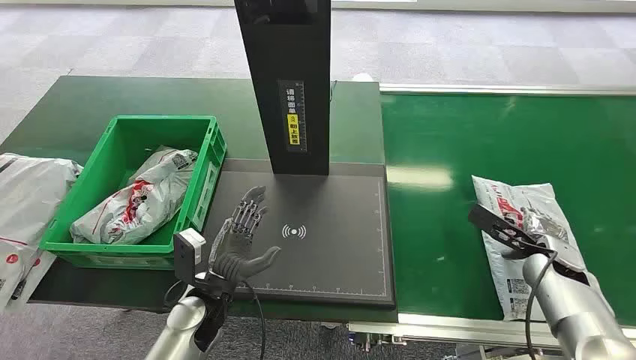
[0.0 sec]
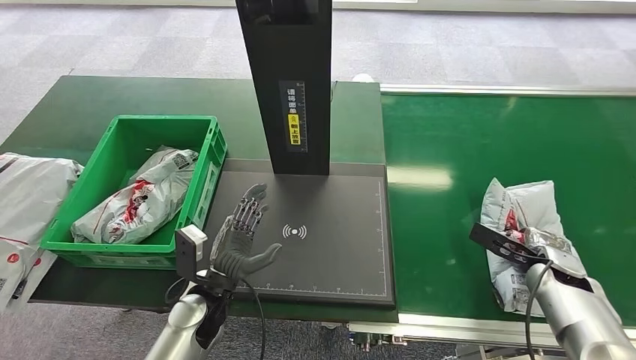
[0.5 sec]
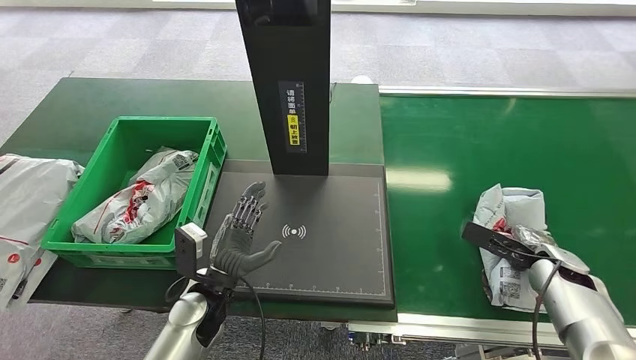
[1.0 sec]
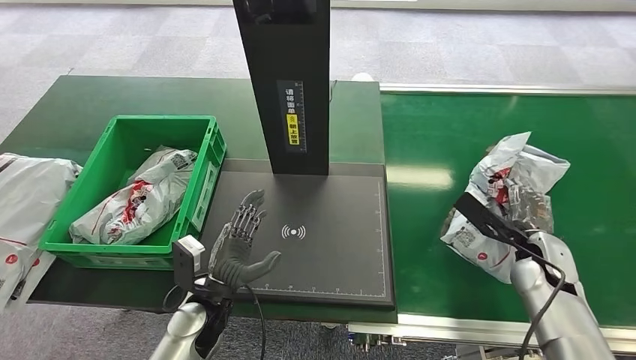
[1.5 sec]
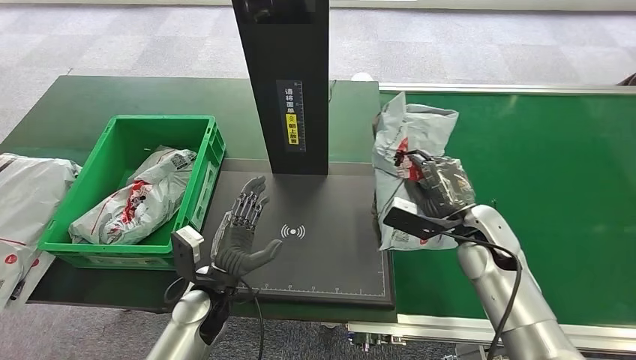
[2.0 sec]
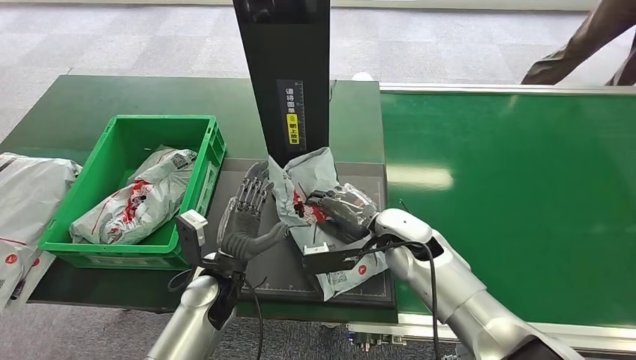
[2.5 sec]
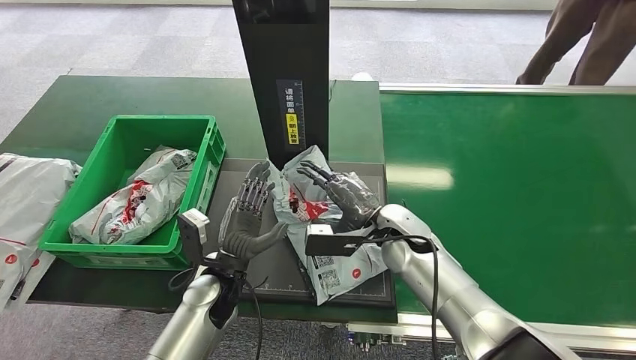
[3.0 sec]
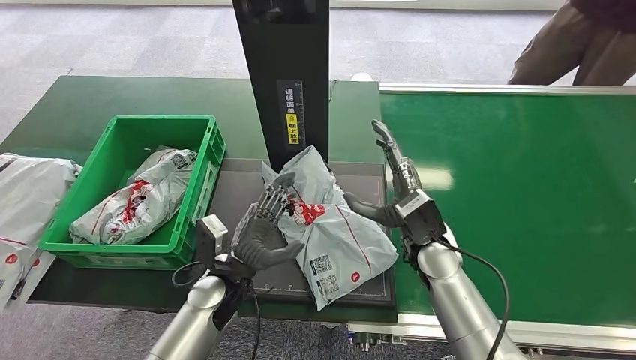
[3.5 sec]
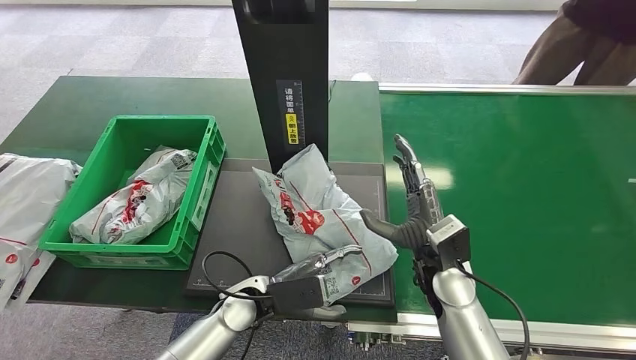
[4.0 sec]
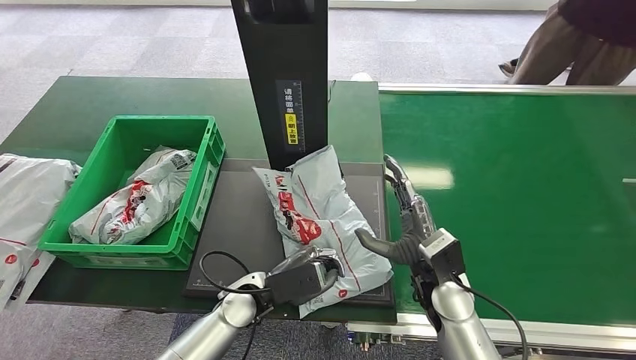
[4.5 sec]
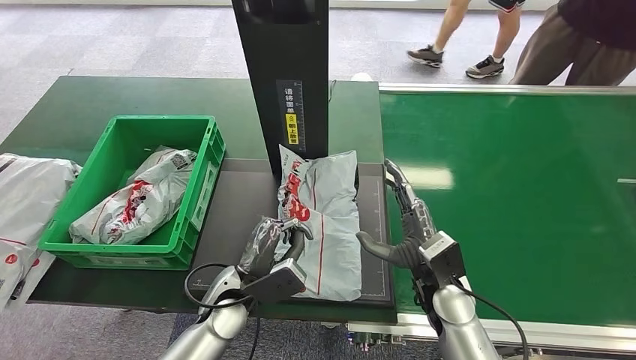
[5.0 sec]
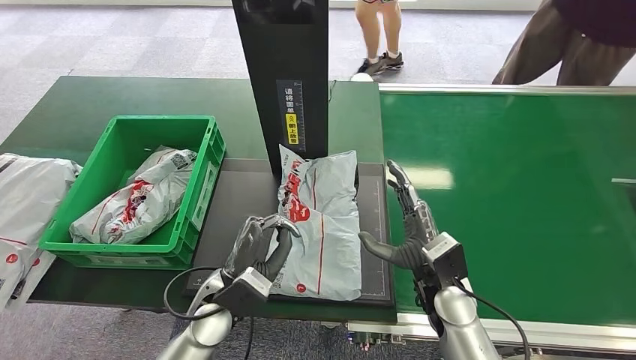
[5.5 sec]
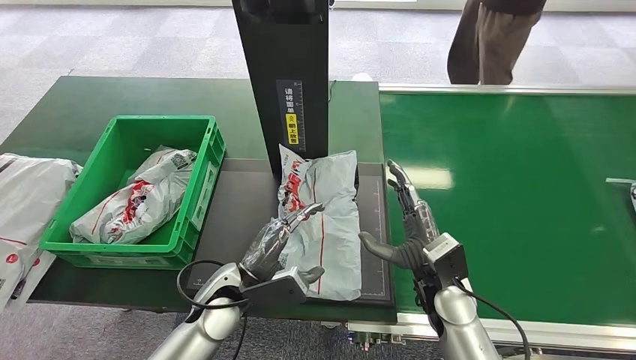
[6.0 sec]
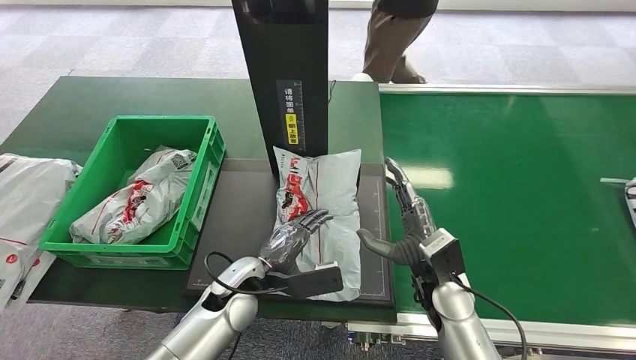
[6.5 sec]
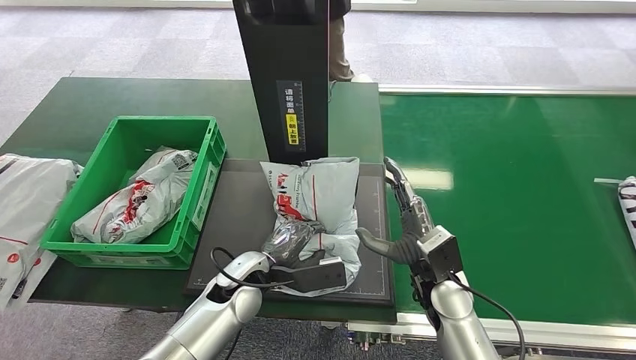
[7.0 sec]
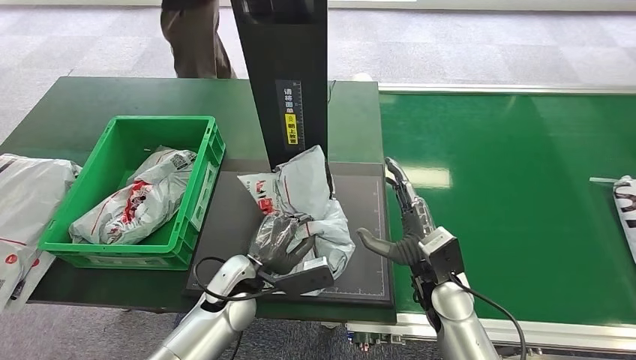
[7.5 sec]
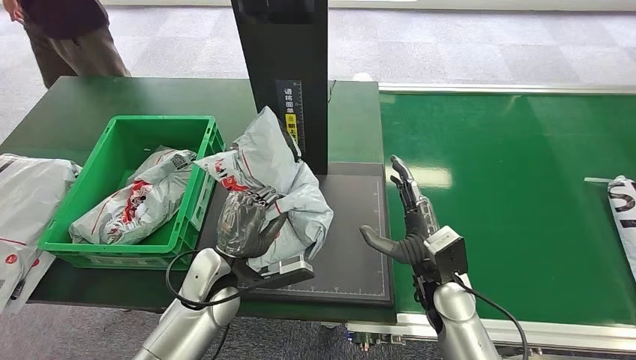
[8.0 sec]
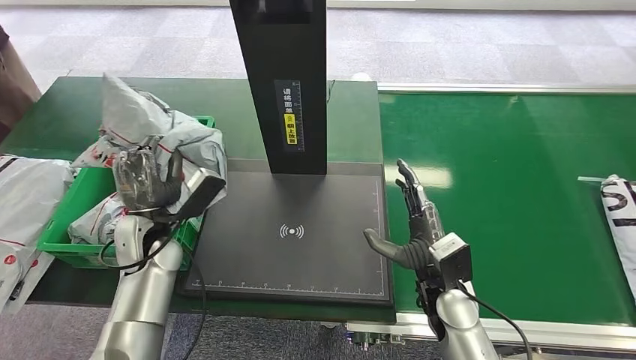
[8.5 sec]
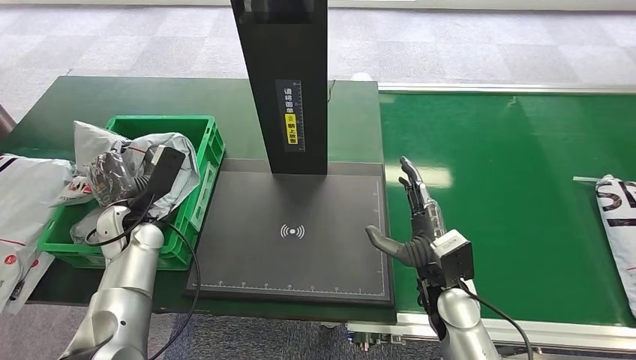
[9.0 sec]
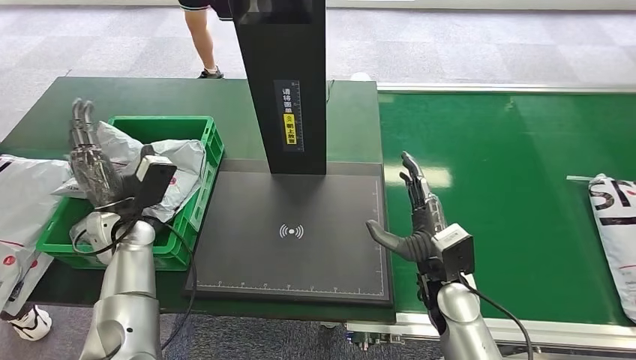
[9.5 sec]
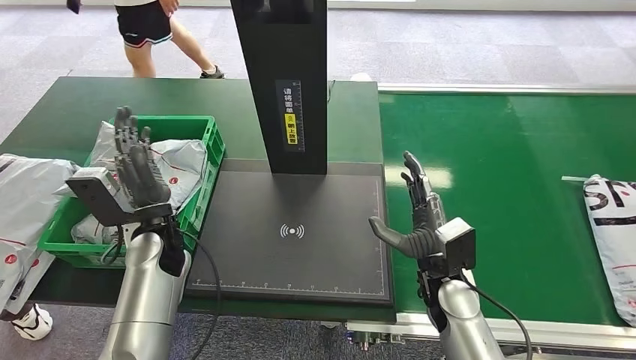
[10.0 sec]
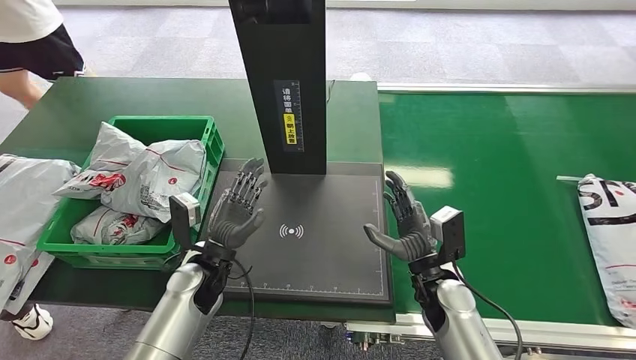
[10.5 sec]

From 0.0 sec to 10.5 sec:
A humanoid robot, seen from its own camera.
Step, from 0.0 sec to 1.5 sec: Pick up the package from the conveyor belt.
Step, from 2.0 sec to 3.5 sec: Place the package onto the inbound machine.
Step, from 6.0 sec to 8.5 sec: Pick up the package from the inbound machine.
Step, from 9.0 sec to 10.5 sec: Place the package into the parcel locker.
